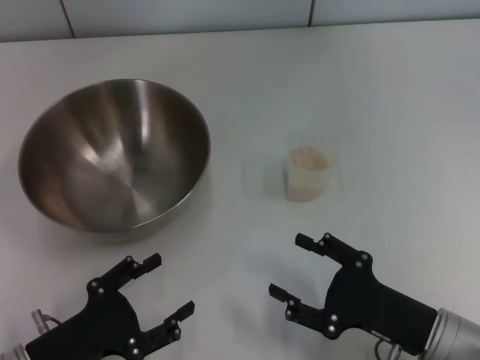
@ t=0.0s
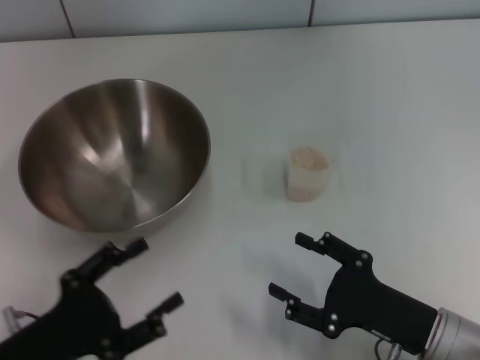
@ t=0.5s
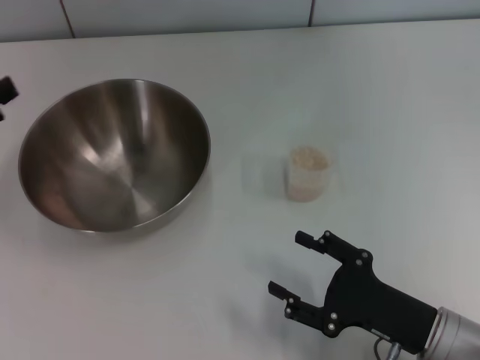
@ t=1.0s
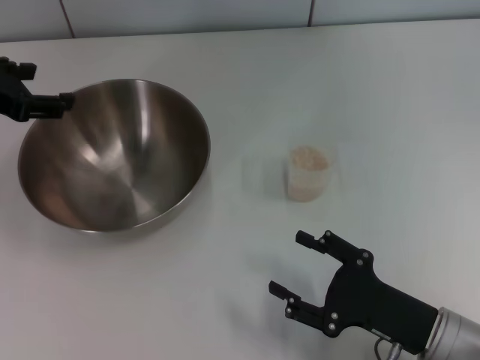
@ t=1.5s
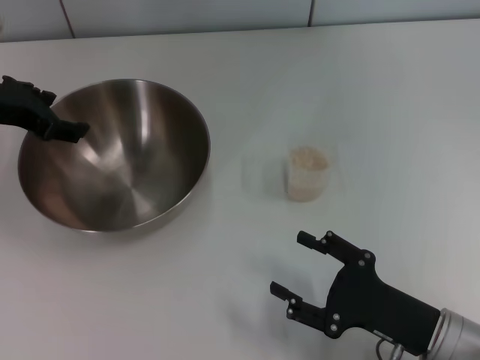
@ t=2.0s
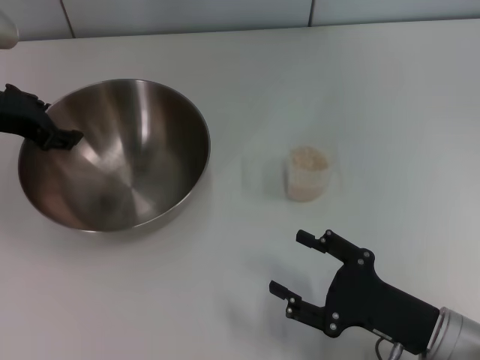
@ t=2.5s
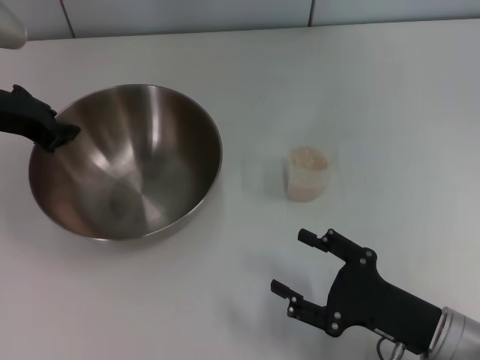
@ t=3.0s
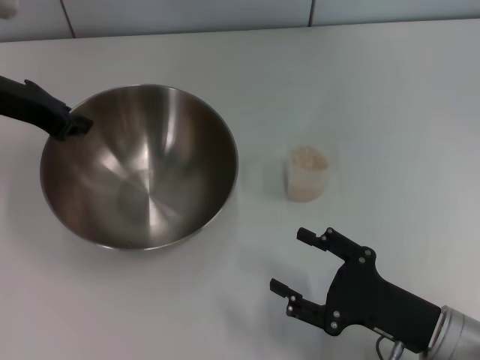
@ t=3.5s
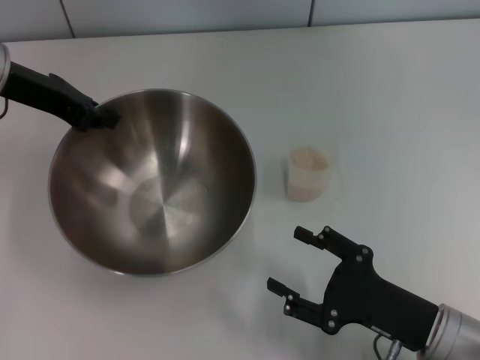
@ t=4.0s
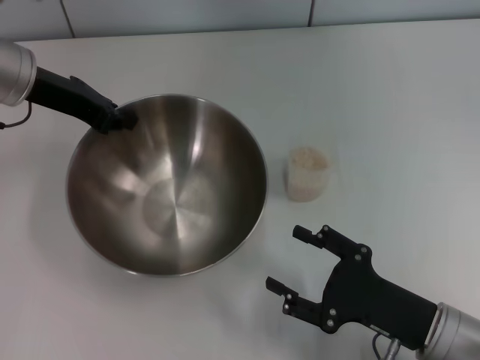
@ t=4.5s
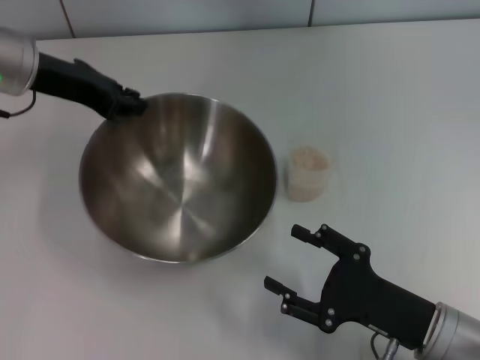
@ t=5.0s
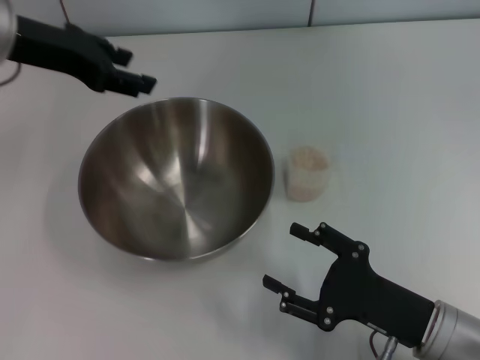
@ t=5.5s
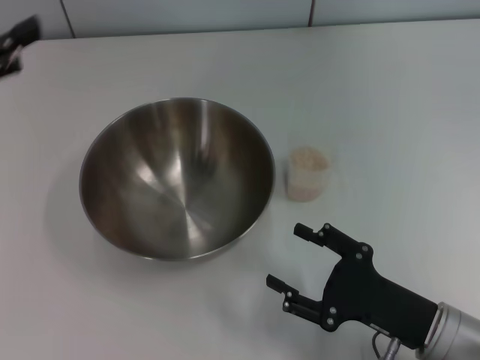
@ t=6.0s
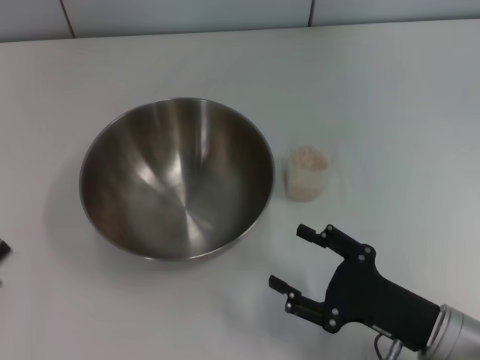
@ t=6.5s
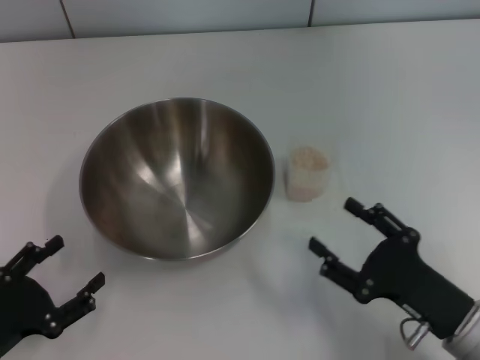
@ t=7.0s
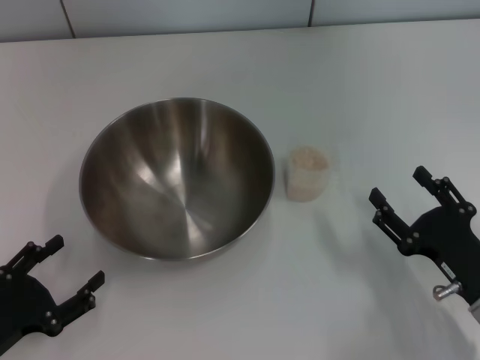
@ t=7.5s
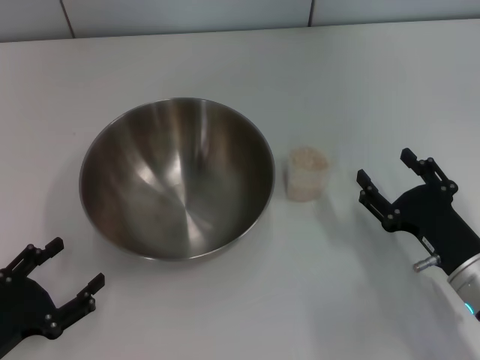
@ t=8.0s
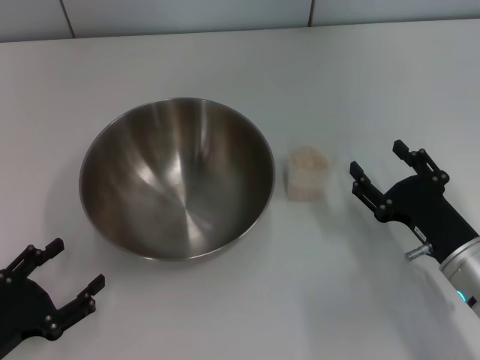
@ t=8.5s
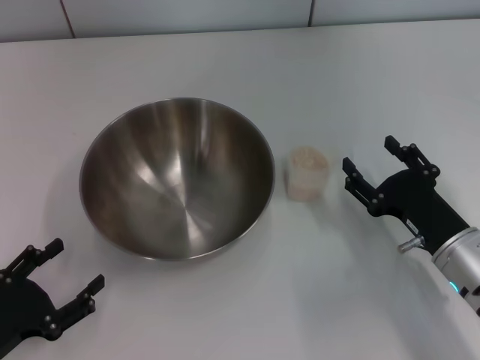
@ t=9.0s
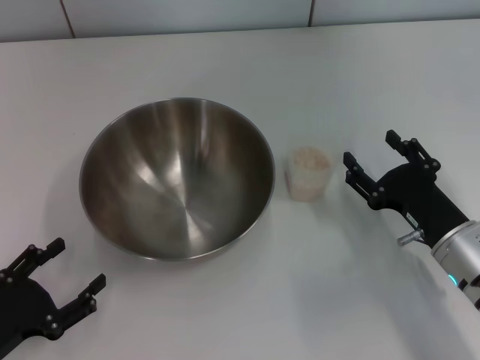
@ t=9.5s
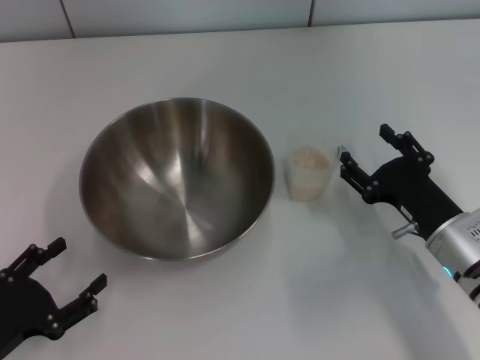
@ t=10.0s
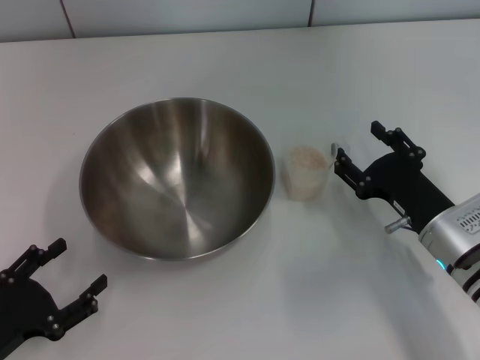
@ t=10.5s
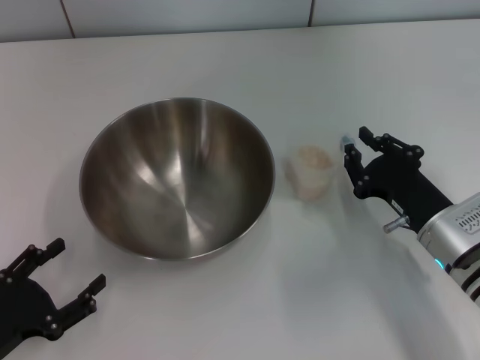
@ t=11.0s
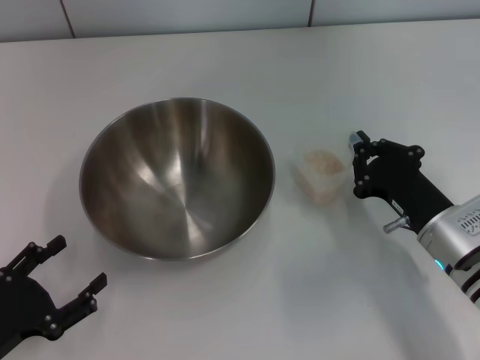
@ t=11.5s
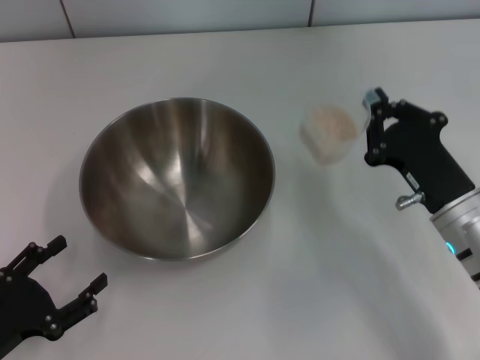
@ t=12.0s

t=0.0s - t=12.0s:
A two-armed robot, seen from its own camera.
Task of the whole recording: Place the bowl in the middle of the table with one hand and pour the rice from the grain cup into it with the other hand.
Step, t=0.0s - t=4.0s: Pick up the bowl with the left gripper.
Step, t=4.5s - t=5.0s: Place the bowl in the center of view with the left gripper.
t=0.0s - t=2.0s: The left gripper heads forward and upward, covering some 30 cm.
t=2.0s - t=4.0s: The left gripper closes up.
t=4.0s - t=6.0s: The left gripper is displaced backward and to the left by about 15 cm, and opens up.
t=6.0s - t=8.0s: The left gripper is displaced downward and backward by about 25 cm; the right gripper moves roughly 5 cm.
t=8.0s - t=10.0s: The grippers move only a little.
t=10.0s - t=12.0s: The right gripper closes its fingers.

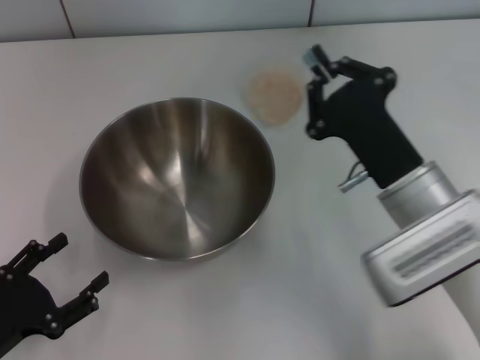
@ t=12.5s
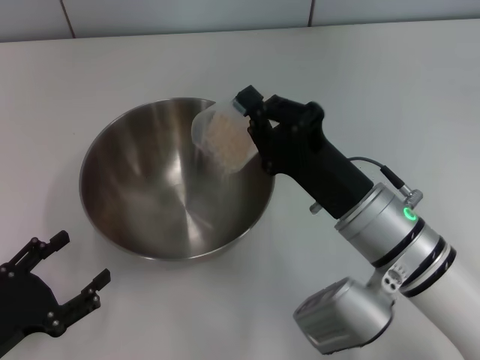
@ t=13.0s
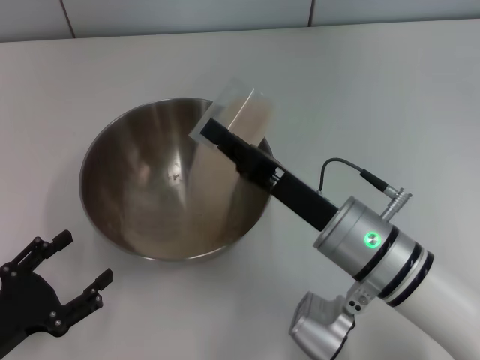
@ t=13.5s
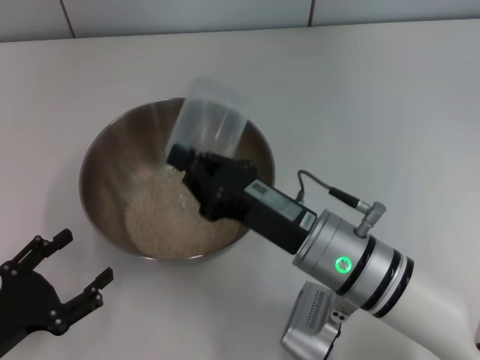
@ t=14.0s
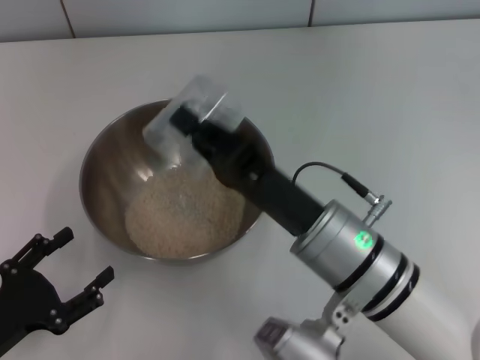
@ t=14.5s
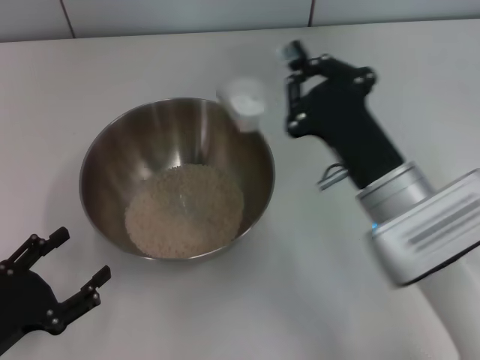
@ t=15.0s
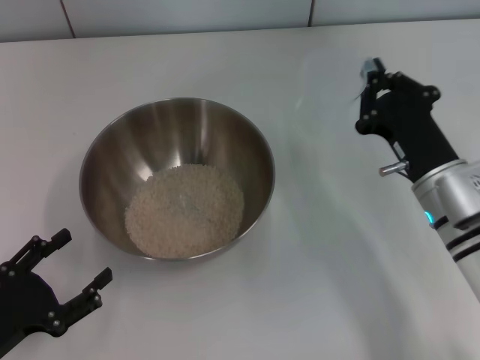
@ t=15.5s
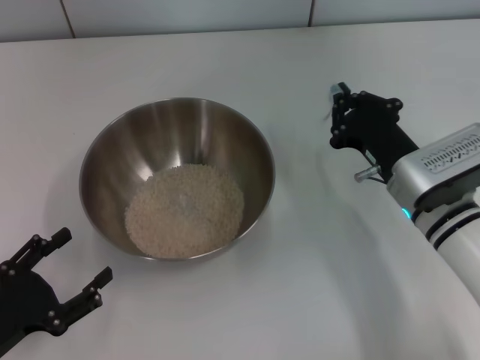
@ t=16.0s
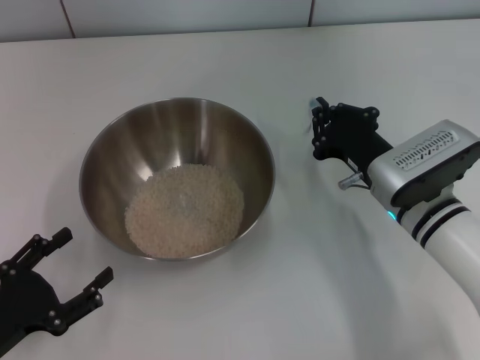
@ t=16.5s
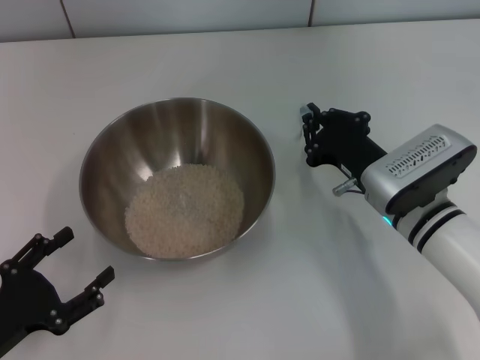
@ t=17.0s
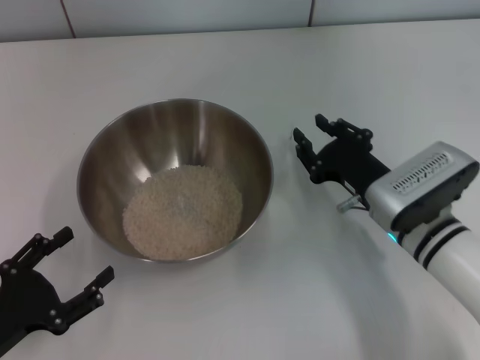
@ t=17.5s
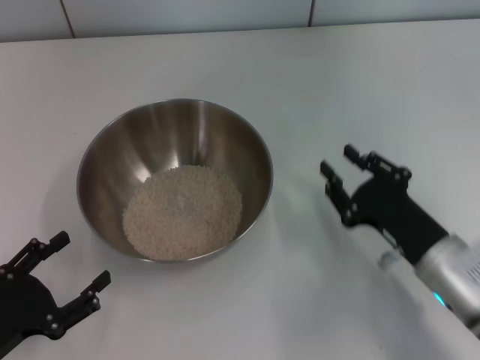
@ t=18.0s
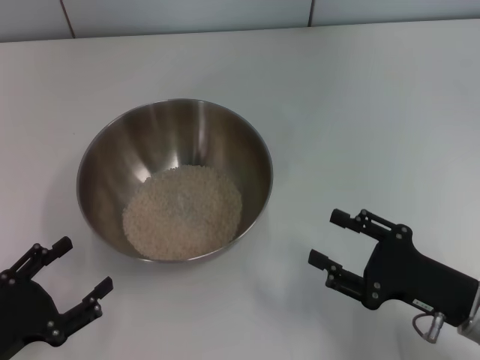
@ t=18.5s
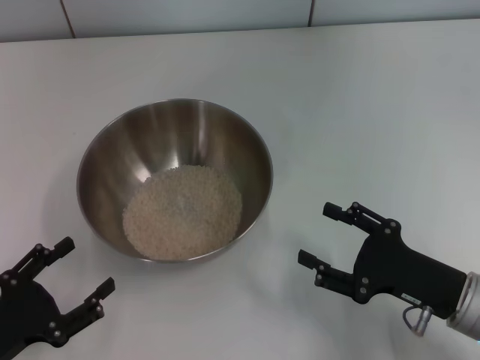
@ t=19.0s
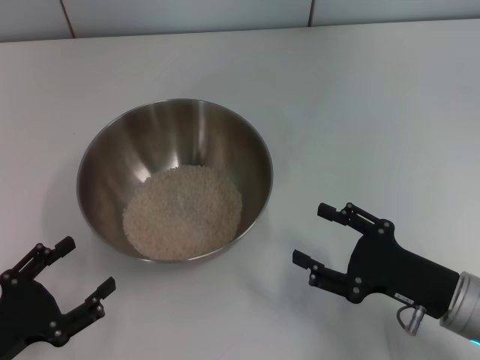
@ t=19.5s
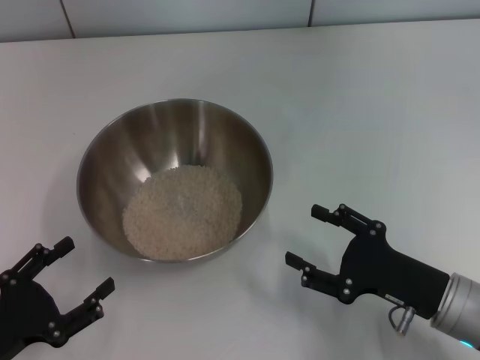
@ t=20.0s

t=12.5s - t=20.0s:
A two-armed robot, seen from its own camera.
Task of the whole recording: Place the bowl in the middle of the table with one hand and pour the rice from the grain cup into it with the other hand.
Step, t=12.5s - t=14.5s: Pour the rice from the cup into the bowl with the right gripper.
Step, t=15.0s - t=17.5s: Place the cup on the table with the right gripper.
t=12.5s - t=14.5s: The right gripper shifts some 10 cm to the left.
t=14.5s - t=16.5s: The right gripper heads to the right, forward and downward, covering about 15 cm.
t=16.5s - t=18.0s: The right gripper shifts roughly 10 cm backward, and opens its fingers.
t=18.0s - t=20.0s: The right gripper opens its fingers.
